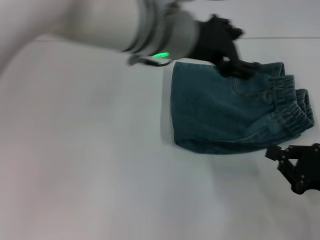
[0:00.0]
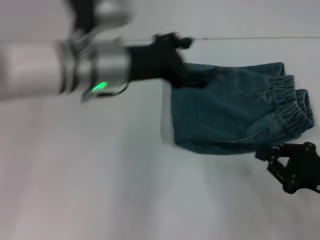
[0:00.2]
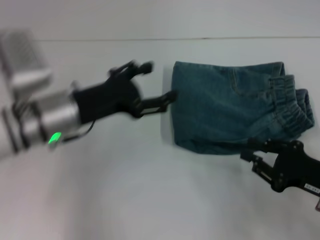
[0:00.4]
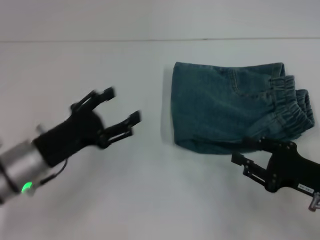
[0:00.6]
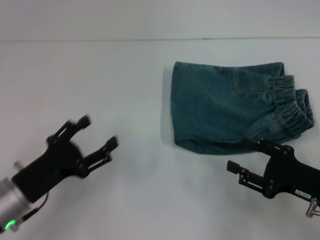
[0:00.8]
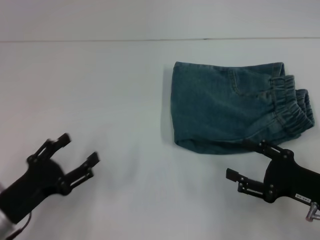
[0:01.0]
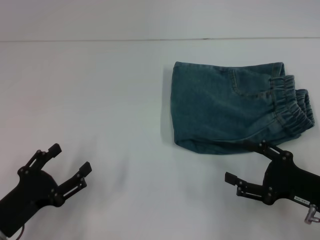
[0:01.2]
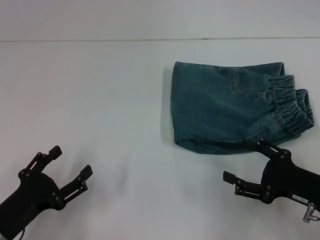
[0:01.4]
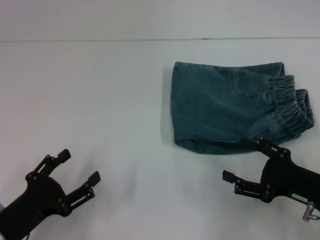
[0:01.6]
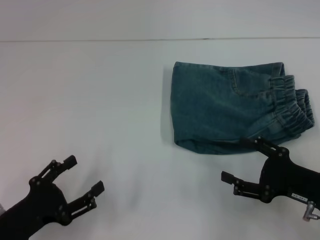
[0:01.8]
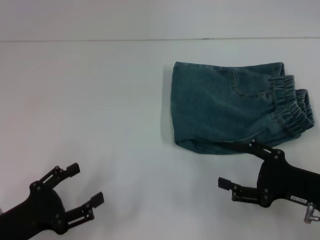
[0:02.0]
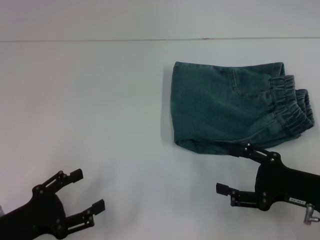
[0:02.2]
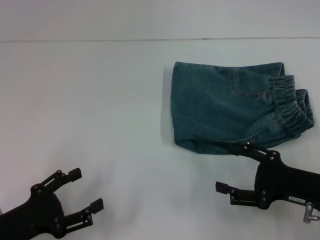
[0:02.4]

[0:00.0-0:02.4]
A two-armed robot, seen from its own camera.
0:00.0 to 0:01.2: The left gripper is displaced to the left, downward and backward by approximately 40 cm, and opens up. Meanwhile the right gripper opens.
0:01.2 to 0:02.4: The grippers make only small movements.
